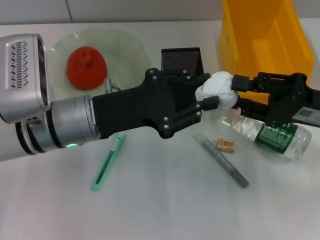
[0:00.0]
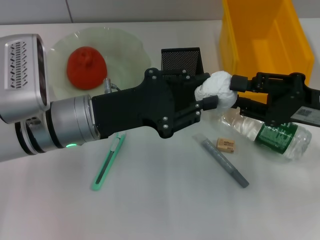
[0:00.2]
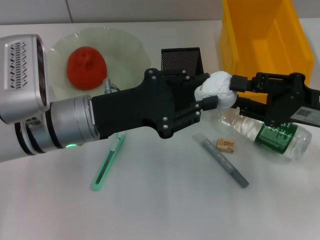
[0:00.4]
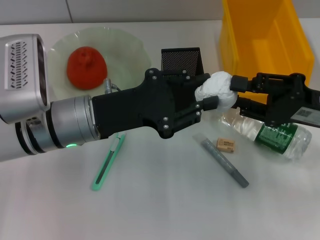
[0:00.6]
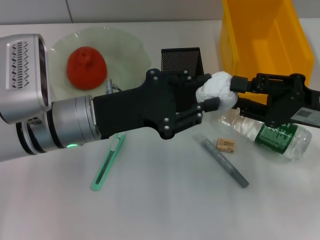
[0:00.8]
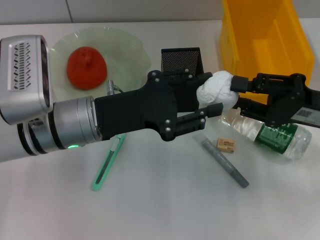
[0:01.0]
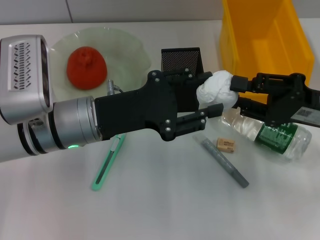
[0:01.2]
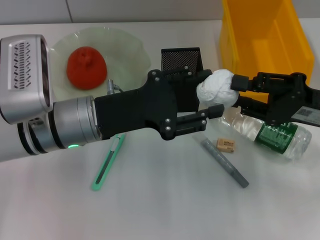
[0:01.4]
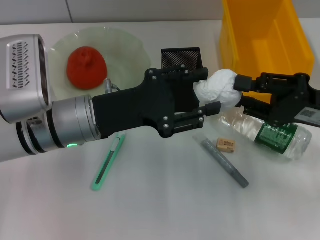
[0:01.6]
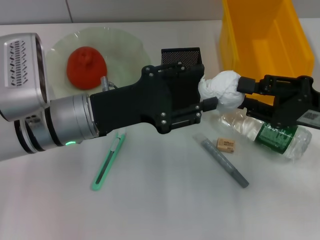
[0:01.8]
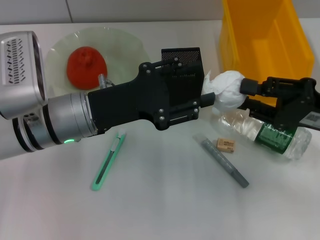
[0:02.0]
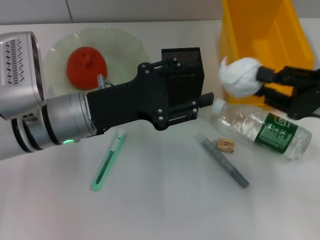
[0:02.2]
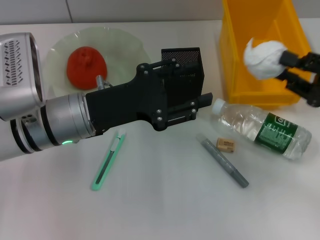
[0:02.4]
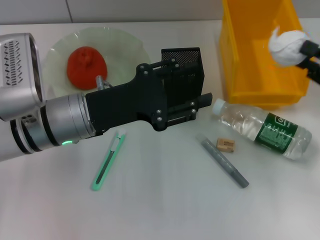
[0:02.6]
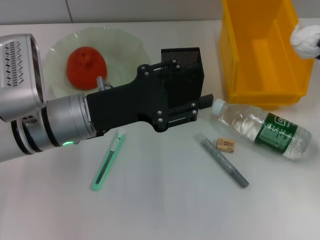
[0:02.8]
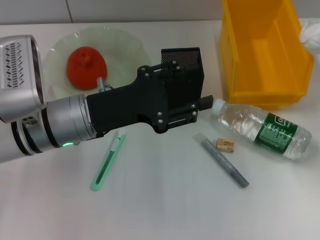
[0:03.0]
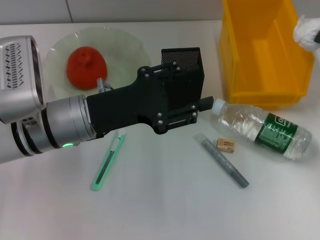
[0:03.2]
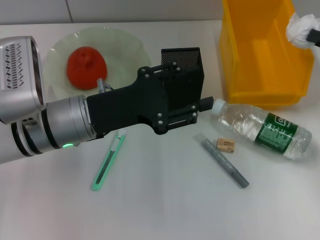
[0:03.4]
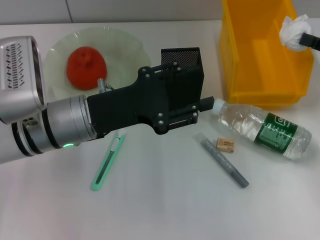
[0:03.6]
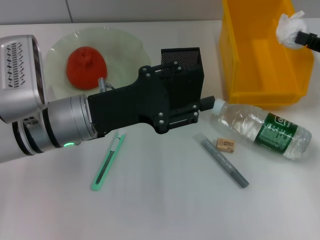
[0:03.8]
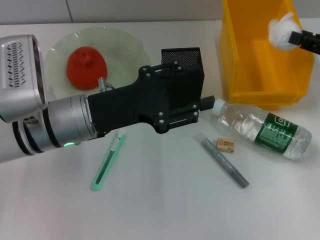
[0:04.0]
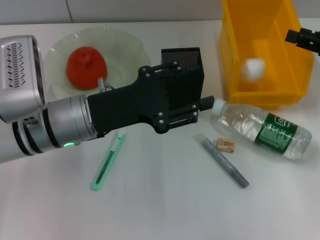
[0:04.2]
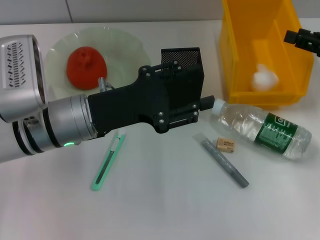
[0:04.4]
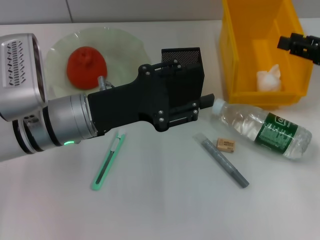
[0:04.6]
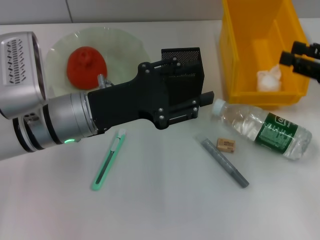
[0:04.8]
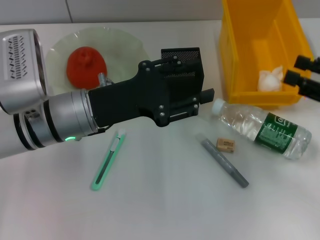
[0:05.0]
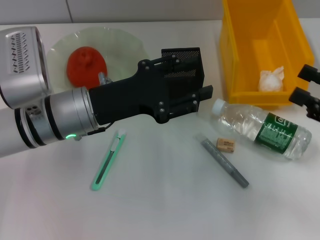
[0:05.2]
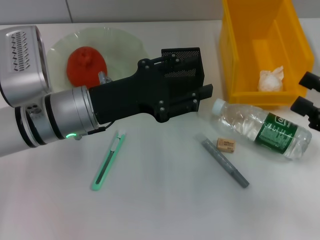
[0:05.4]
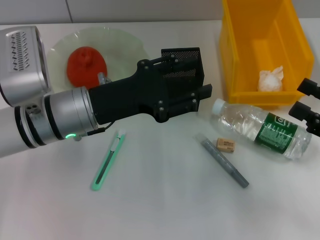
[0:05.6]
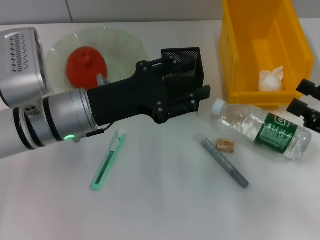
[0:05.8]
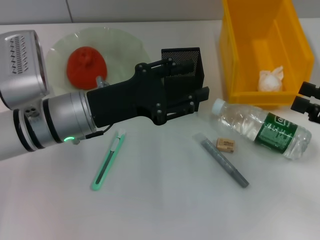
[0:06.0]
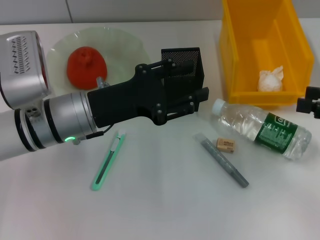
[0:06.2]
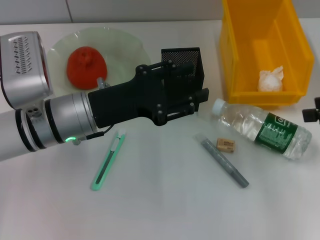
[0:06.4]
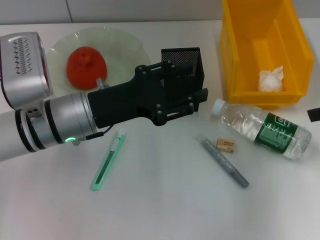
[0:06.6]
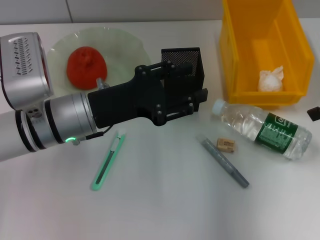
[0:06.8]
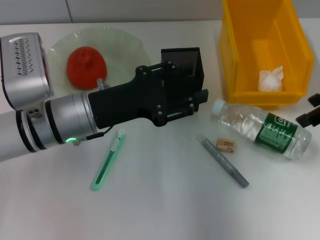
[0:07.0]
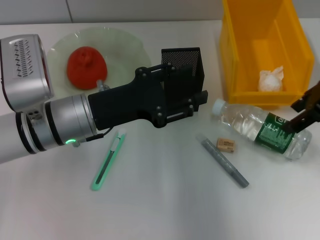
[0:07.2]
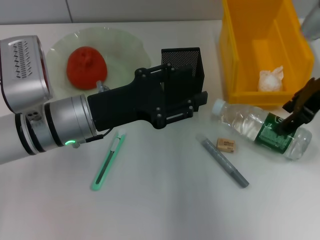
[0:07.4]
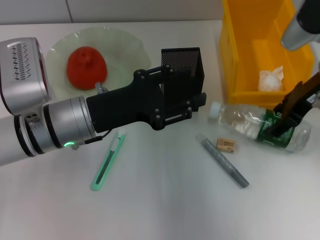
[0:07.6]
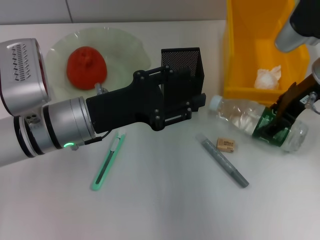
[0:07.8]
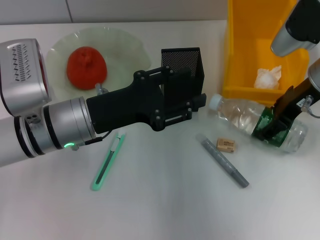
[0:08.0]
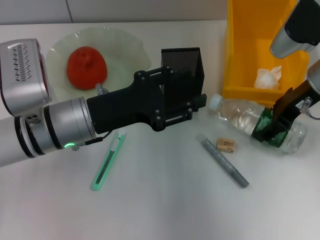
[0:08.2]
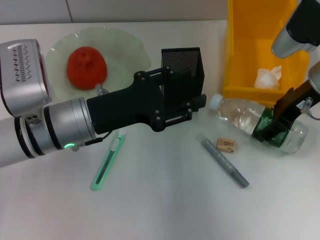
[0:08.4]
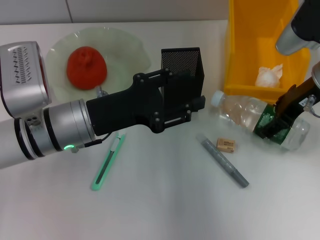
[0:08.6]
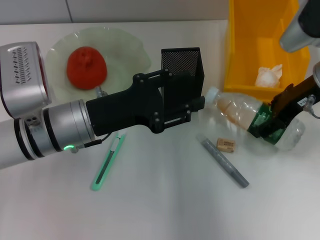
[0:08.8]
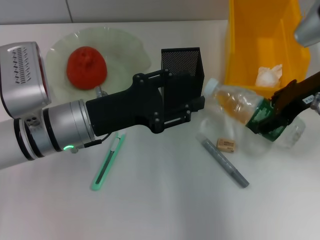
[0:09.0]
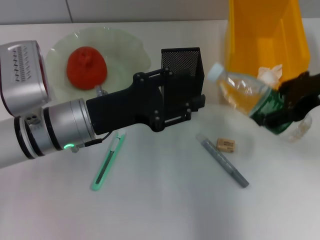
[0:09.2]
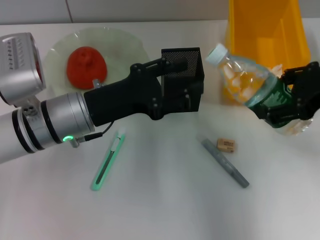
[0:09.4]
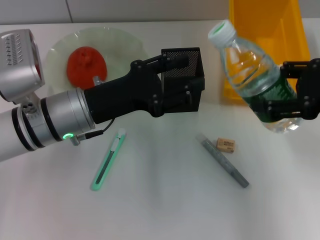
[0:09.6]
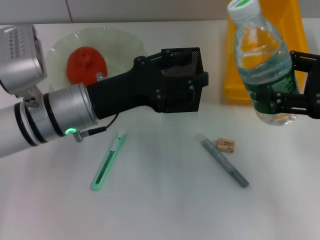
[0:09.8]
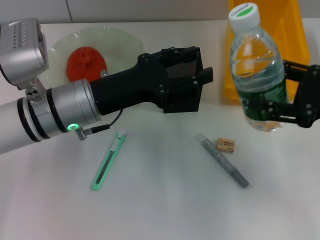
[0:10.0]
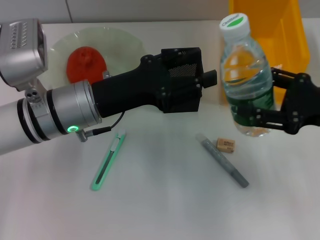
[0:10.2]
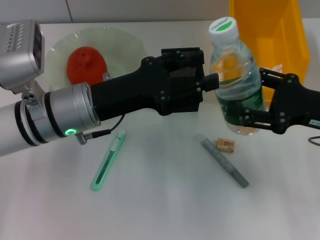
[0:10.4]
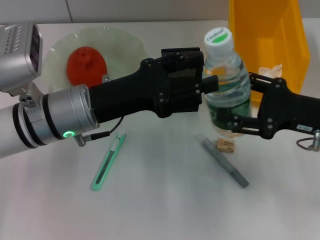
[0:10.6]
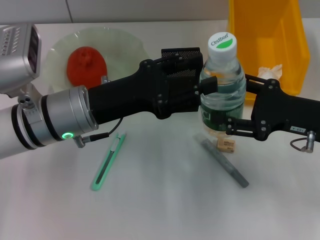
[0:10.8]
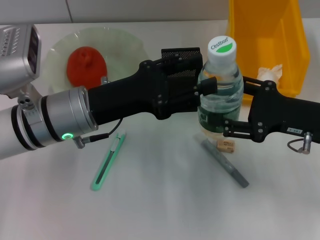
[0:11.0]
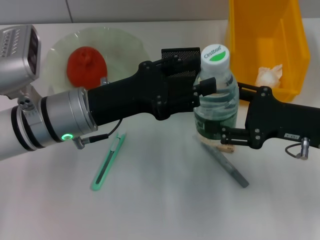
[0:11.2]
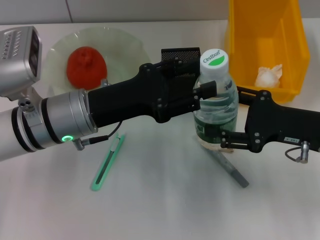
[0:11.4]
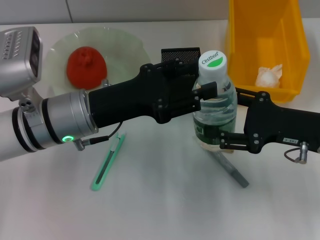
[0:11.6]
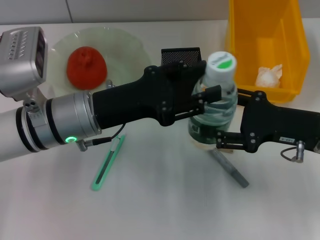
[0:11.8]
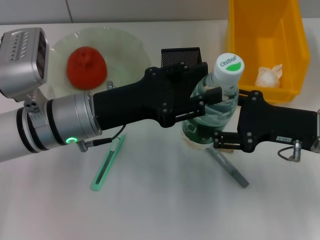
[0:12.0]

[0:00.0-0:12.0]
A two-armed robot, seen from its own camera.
Step, 0:02.0 to 0:04.4: Place the paper ball into the trash can with the right hand.
Step, 0:04.6 to 0:08.2: Grab the water bottle with the right hand.
0:00.0 to 0:01.6: The left gripper opens up.
0:01.6 to 0:03.0: The right gripper shifts roughly 10 cm to the right.
0:03.0 to 0:04.4: The right gripper changes place by roughly 5 cm, and opens up.
0:04.4 to 0:06.0: The right gripper heads backward, covering approximately 10 cm.
0:06.0 to 0:07.6: The right gripper goes some 20 cm forward and to the left.
0:07.6 to 0:09.0: The grippers make only small movements.
0:09.0 to 0:10.4: The right gripper shifts roughly 10 cm backward and downward.

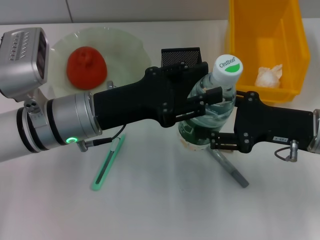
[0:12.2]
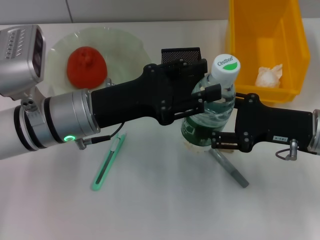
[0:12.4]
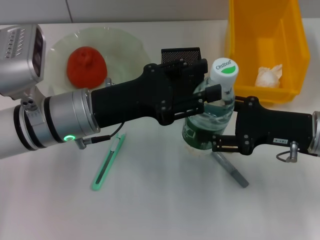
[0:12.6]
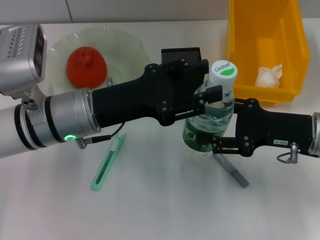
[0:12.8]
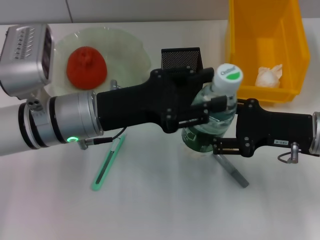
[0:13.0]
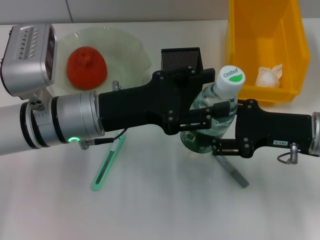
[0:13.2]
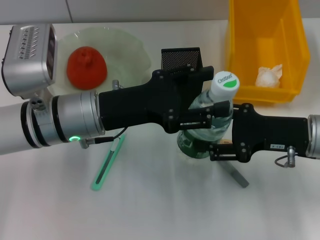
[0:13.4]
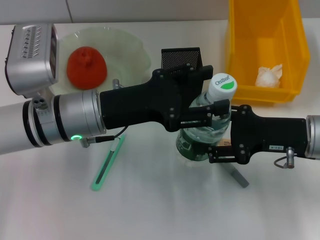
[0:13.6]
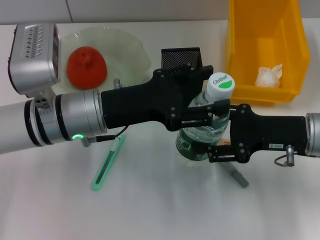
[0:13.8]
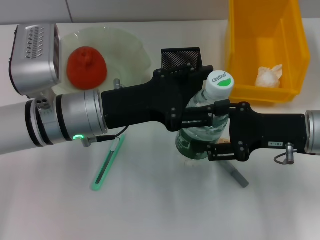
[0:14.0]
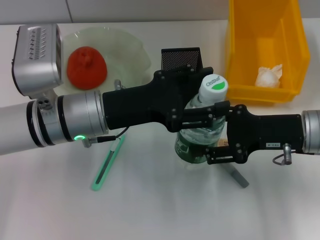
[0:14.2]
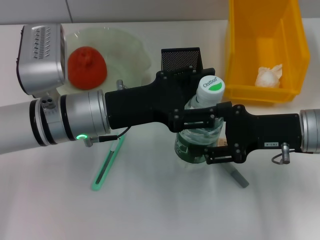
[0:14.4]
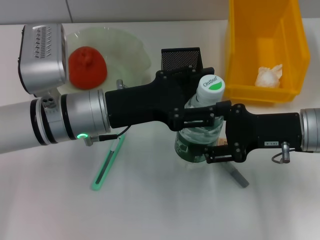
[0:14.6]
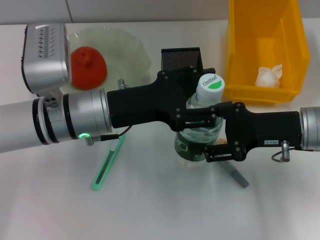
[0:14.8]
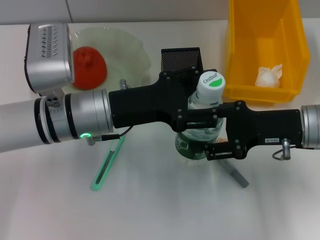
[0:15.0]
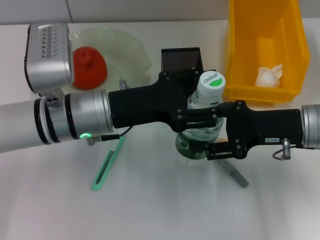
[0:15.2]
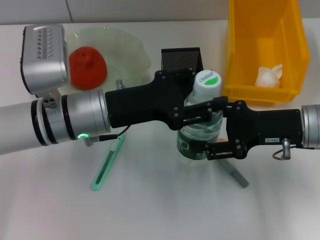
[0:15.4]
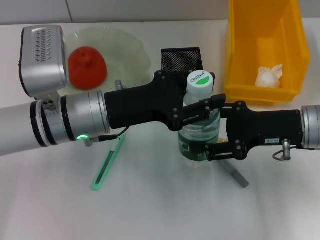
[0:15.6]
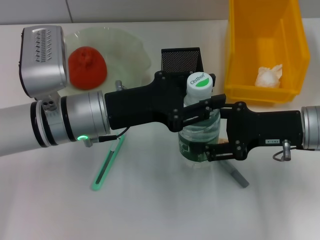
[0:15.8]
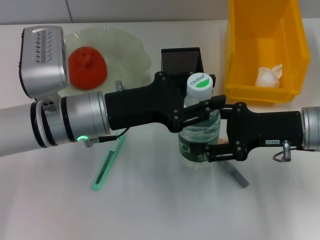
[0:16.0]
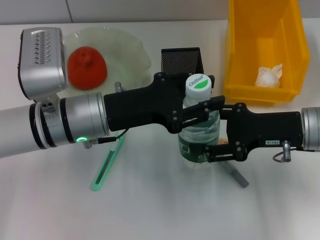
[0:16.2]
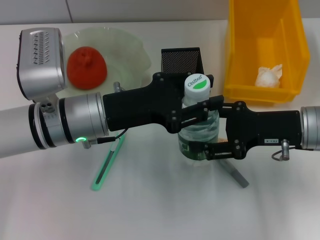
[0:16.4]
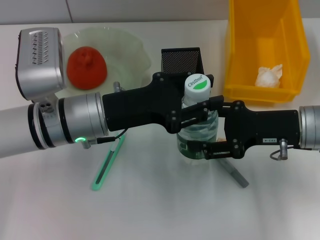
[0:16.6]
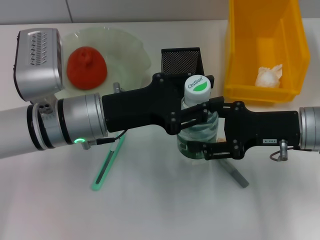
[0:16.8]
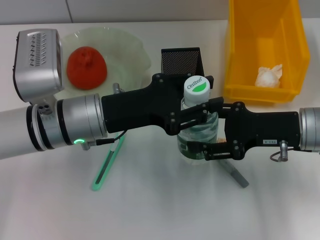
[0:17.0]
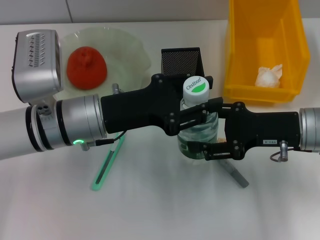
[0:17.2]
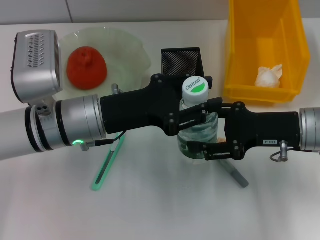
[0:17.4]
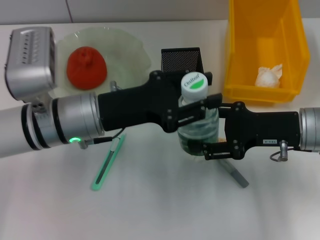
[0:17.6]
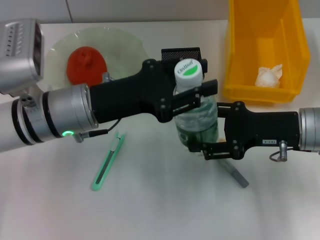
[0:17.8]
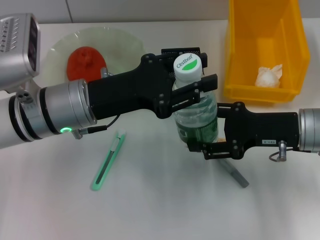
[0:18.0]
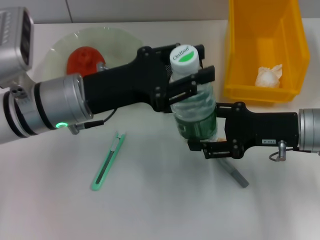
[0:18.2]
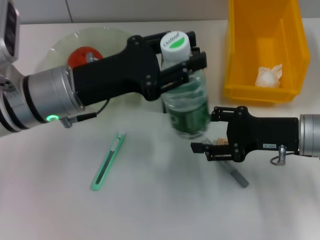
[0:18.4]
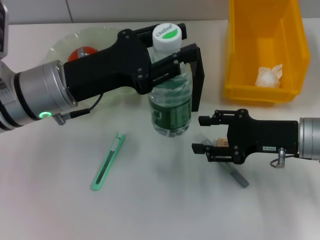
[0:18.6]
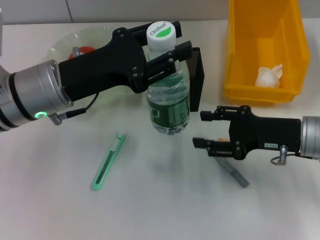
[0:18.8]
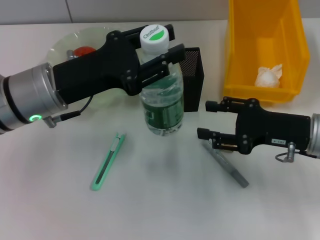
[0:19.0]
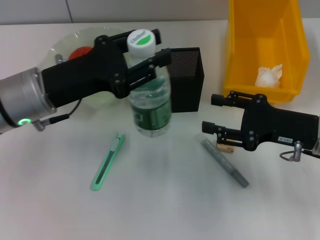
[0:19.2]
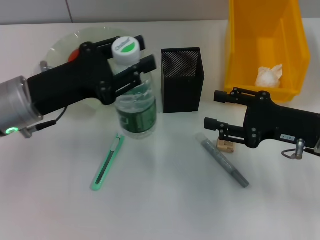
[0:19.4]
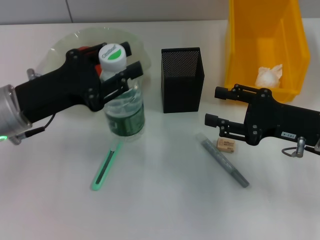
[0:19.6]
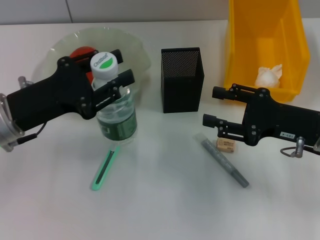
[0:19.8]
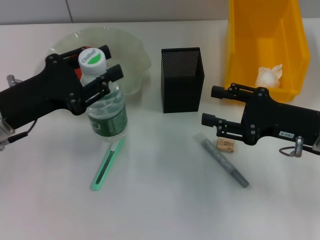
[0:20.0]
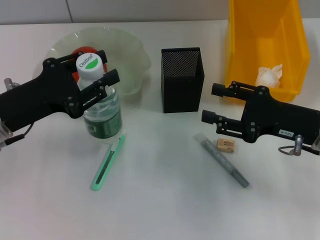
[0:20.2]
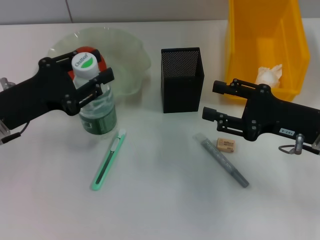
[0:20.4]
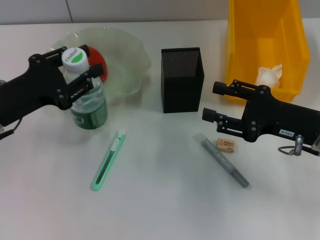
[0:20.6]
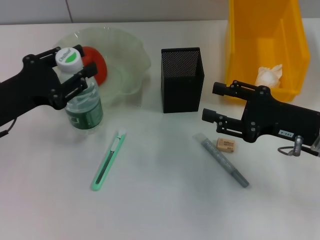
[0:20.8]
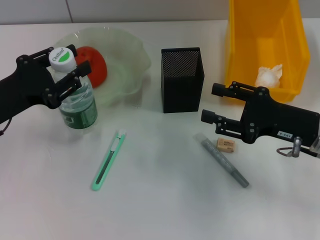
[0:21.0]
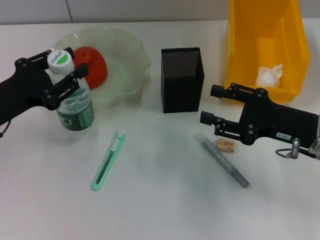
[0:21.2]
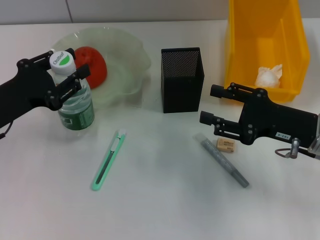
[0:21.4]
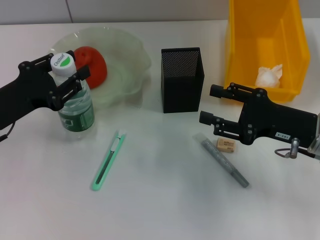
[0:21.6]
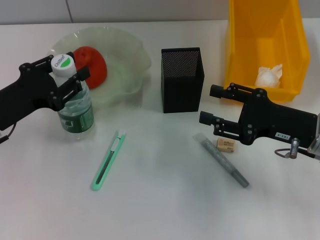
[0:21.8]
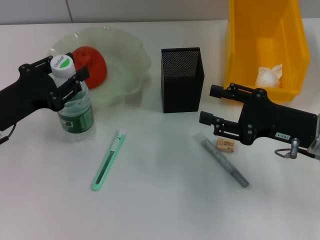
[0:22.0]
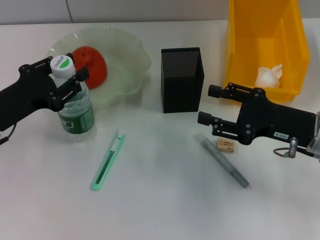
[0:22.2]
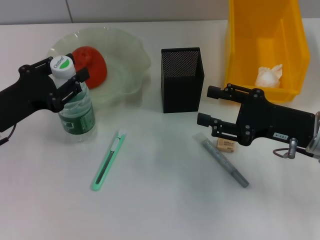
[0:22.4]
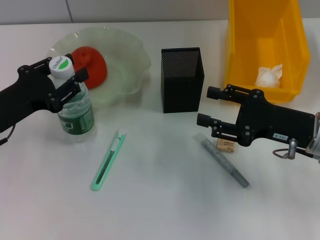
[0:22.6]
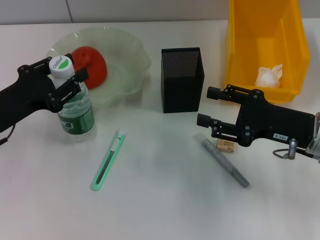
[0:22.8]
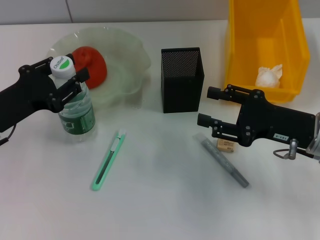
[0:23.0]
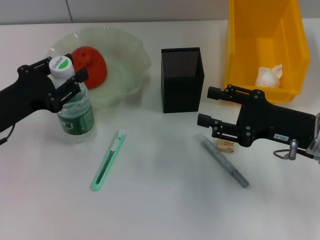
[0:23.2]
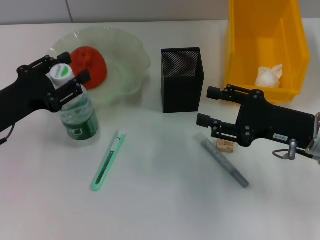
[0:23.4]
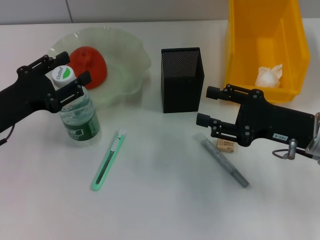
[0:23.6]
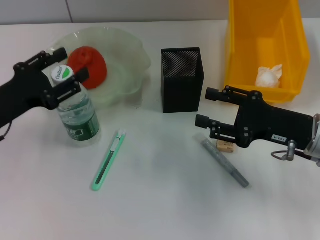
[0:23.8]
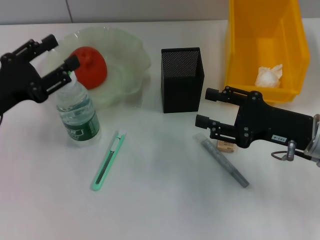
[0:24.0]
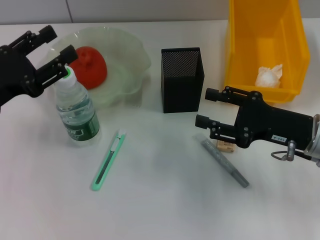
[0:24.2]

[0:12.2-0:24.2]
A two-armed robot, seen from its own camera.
Step, 0:12.2 to 0:18.2: Pass the water bottle from the right hand to the left hand.
0:12.2 to 0:15.2: There are only small adjustments of the grippers.
0:15.2 to 0:16.6: The left gripper closes up.
0:18.2 to 0:19.8: The left gripper heads to the left, covering roughly 10 cm.
0:19.8 to 0:24.2: The grippers stay close to where they were, moving slightly.
